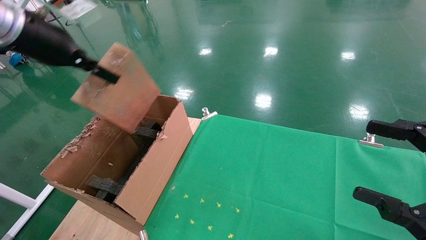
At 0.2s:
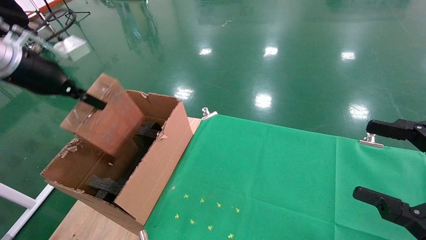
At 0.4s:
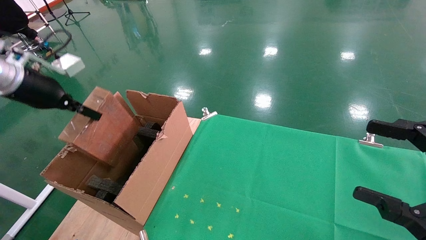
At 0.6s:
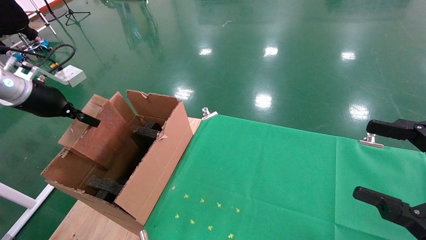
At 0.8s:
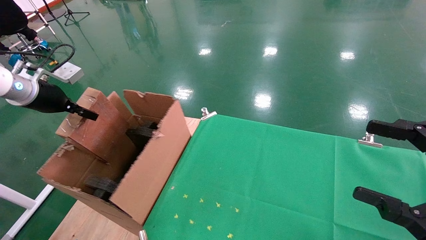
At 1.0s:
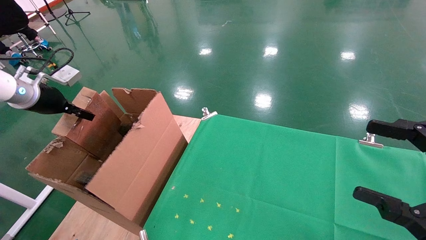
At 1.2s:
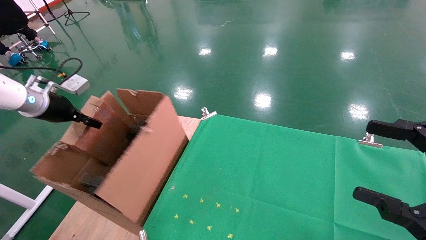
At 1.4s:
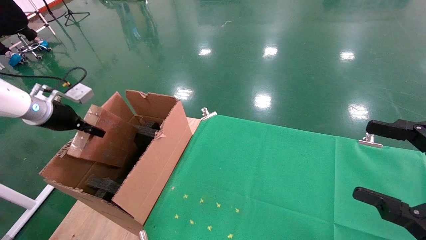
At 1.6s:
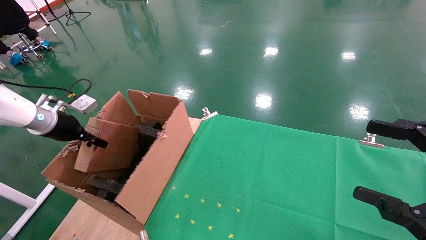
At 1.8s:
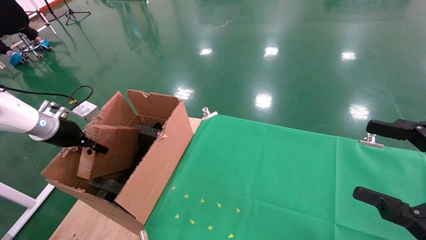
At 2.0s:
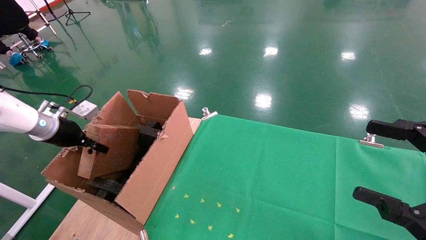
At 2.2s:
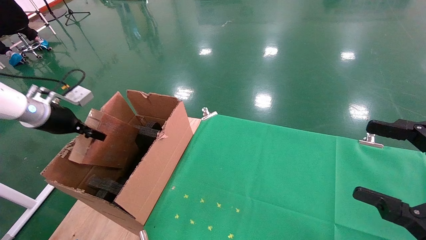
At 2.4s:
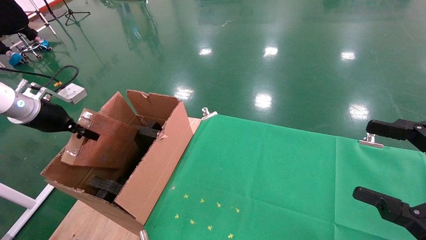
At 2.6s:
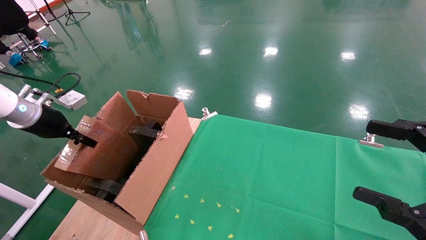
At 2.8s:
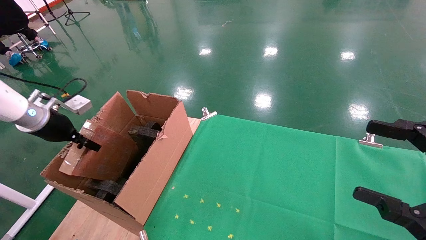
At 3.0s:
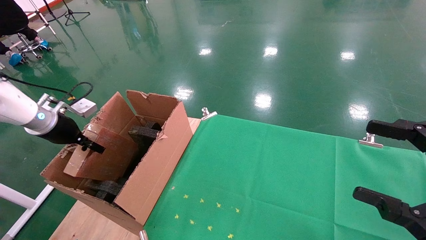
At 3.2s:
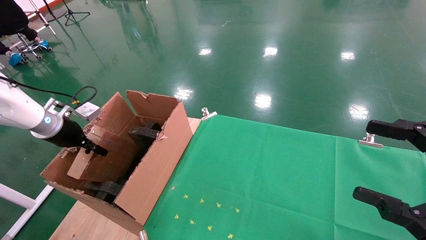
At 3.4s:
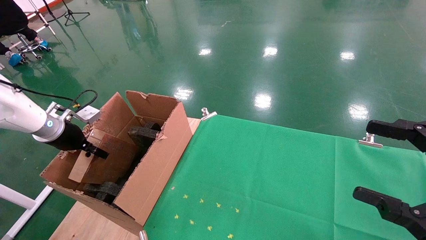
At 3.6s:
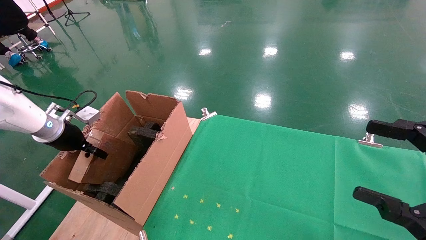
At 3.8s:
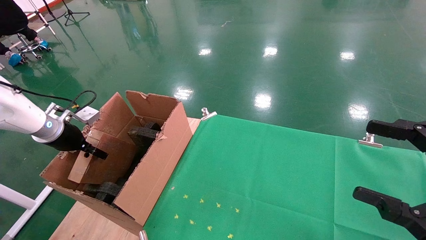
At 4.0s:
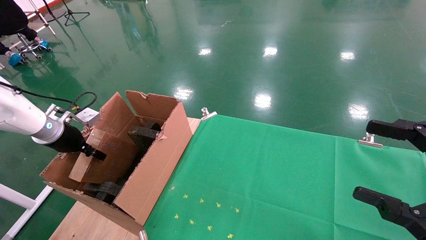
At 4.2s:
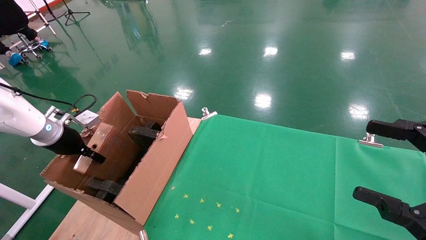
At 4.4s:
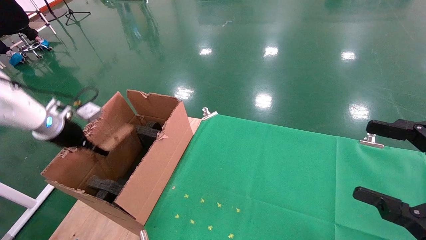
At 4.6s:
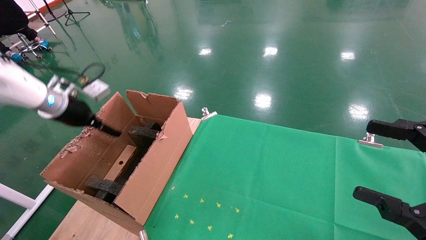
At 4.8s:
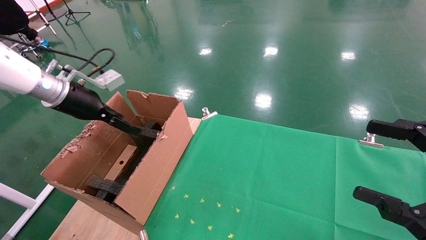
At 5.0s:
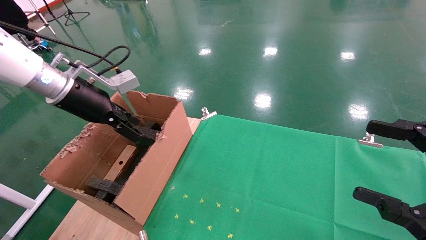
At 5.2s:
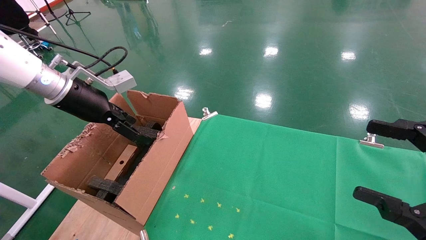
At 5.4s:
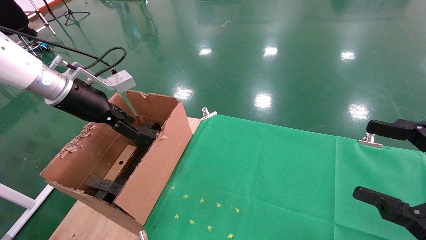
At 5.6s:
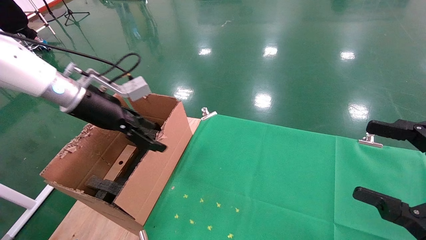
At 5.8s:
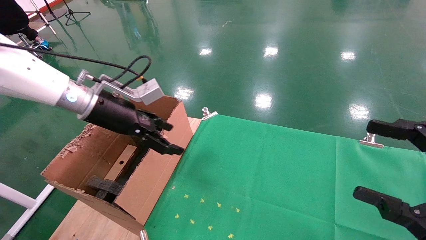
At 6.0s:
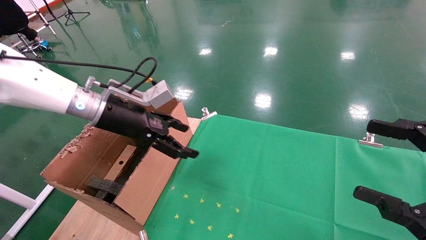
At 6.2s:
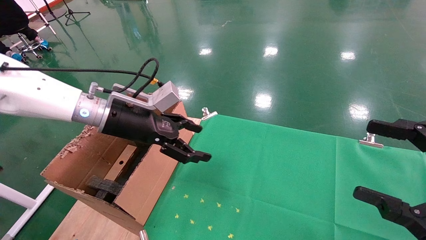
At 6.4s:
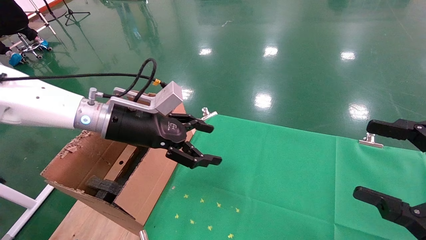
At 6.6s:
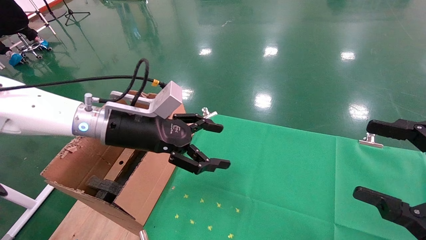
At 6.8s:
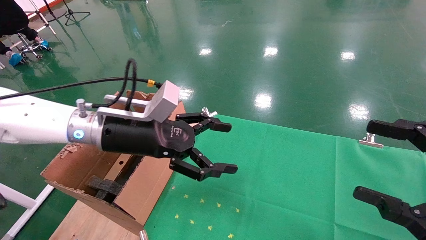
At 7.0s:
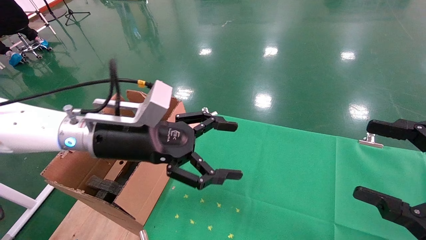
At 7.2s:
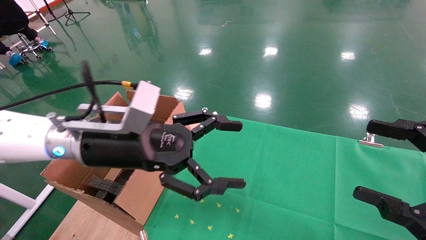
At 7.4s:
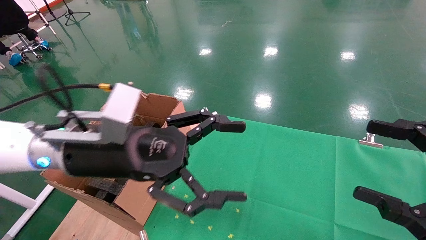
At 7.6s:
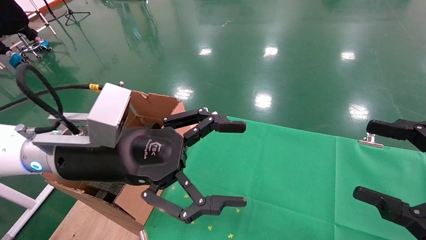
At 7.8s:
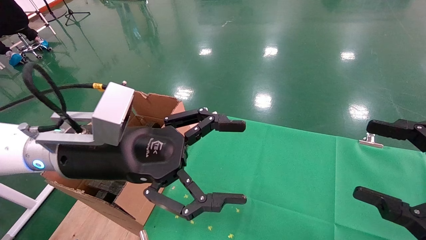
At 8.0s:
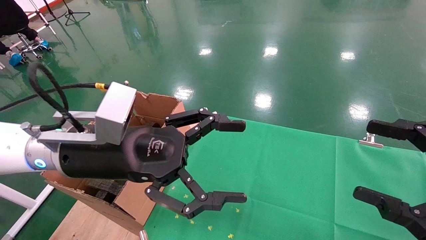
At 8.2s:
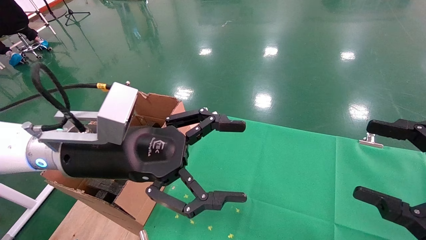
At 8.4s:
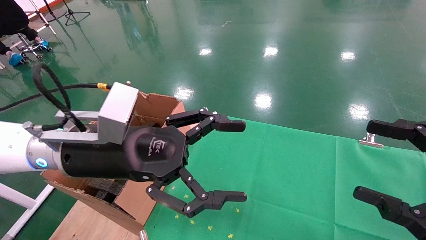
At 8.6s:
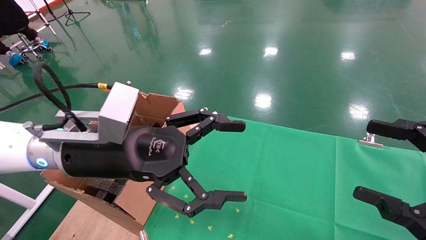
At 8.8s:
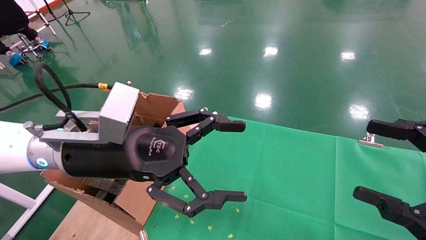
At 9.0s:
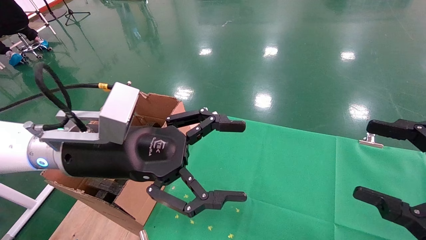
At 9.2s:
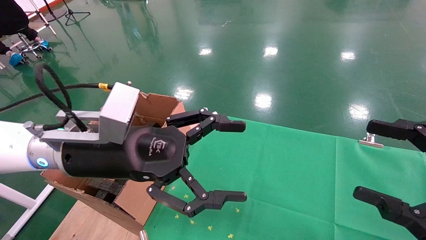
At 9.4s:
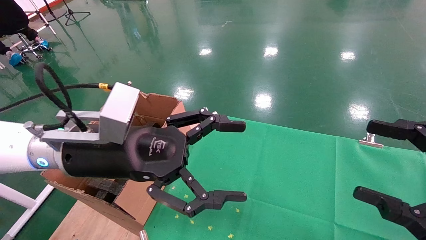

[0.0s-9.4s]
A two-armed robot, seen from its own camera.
Task of the whole recording: using a robotic arm to pick up a cardboard box and palace it the carton.
Step, 0.0s to 4.0s: Place the mouse and the power cord paper box into the container.
0.0s to 1.6s: The left gripper is displaced downward and to the left by roughly 20 cm.
1.6s to 3.2s: There are only small adjustments of the grippers.
3.2s to 4.8s: The left gripper shifts roughly 10 cm upward and to the right, and opens.
4.8s to 6.2s: The left gripper shifts some 15 cm to the right.
6.2s to 7.8s: The left gripper shifts about 15 cm backward and to the right.
7.8s to 9.4s: Neither gripper changes place.
